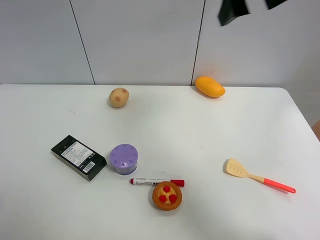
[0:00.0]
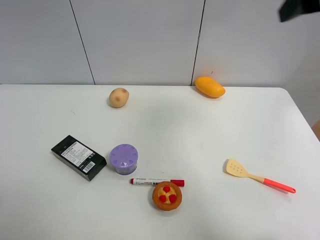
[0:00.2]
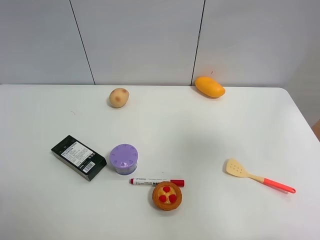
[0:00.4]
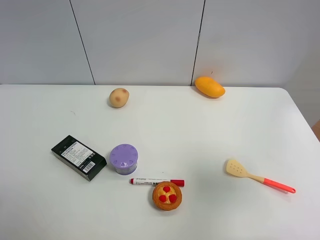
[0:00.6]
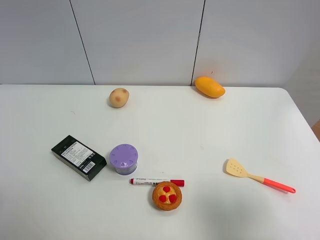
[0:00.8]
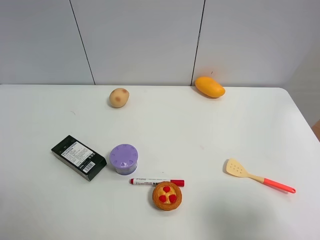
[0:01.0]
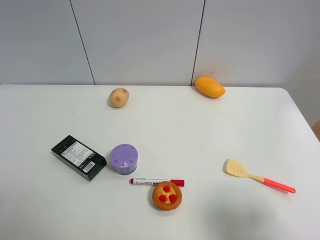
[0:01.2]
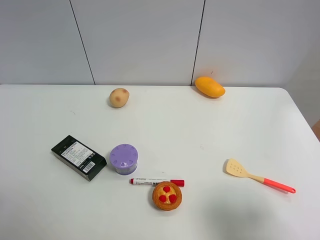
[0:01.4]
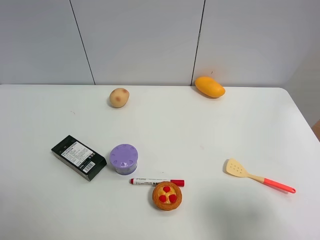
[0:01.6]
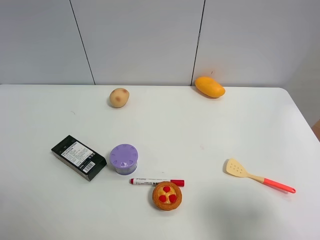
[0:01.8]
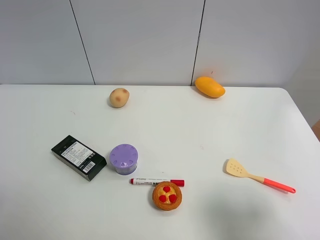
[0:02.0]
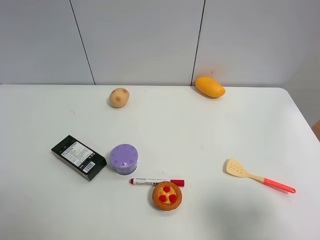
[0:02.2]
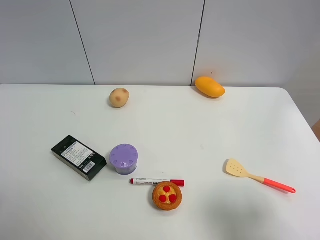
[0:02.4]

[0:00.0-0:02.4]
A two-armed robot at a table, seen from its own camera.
Task of the whole recording: the gripper move the object.
0:00.0 to 0:01.2: The right gripper shifts approximately 35 cm backward, downward and to the right.

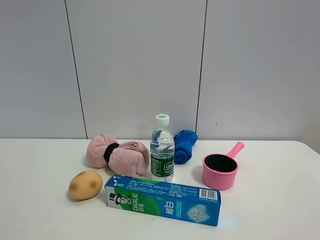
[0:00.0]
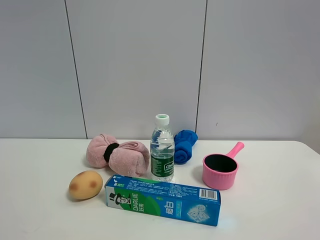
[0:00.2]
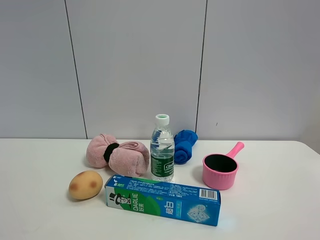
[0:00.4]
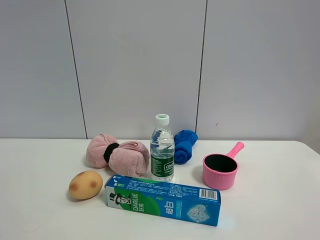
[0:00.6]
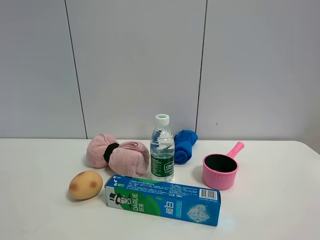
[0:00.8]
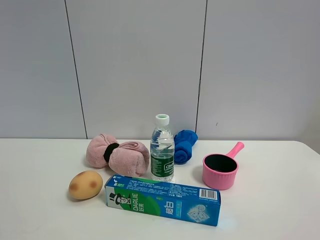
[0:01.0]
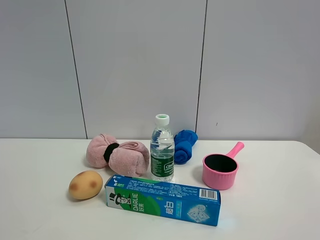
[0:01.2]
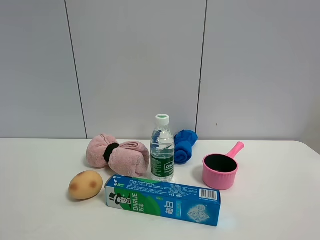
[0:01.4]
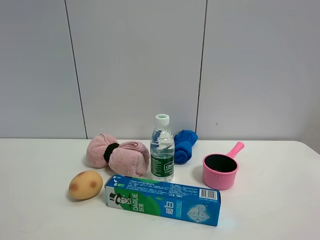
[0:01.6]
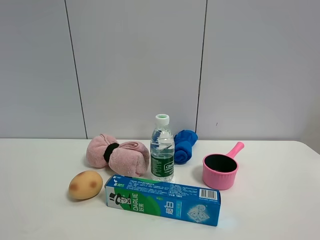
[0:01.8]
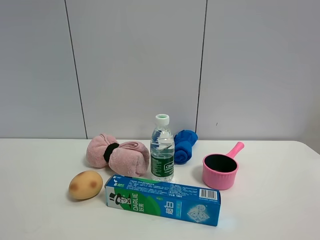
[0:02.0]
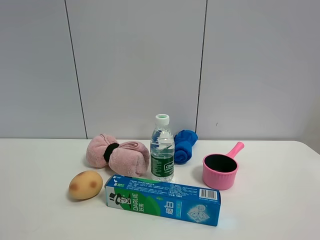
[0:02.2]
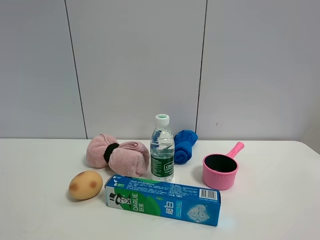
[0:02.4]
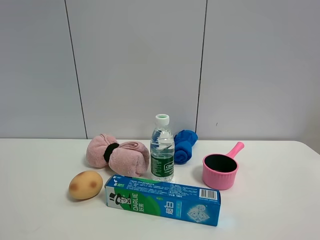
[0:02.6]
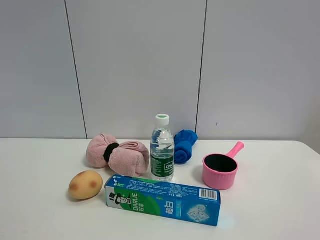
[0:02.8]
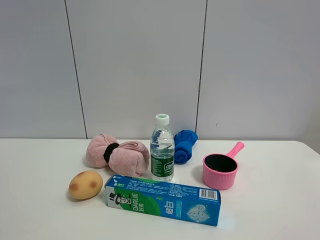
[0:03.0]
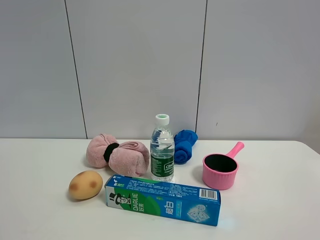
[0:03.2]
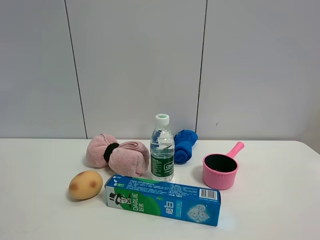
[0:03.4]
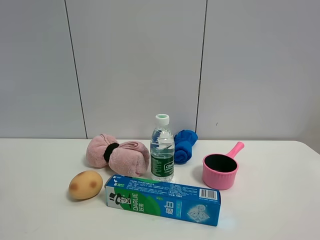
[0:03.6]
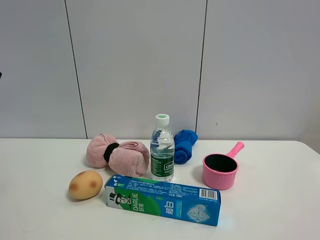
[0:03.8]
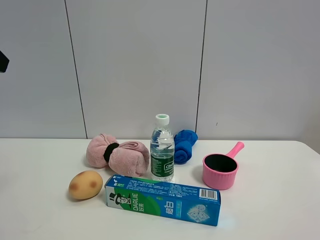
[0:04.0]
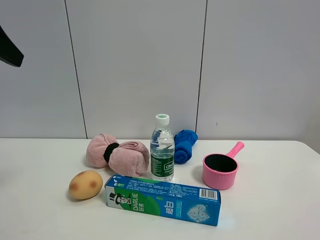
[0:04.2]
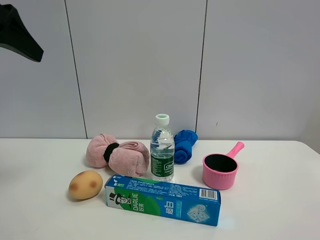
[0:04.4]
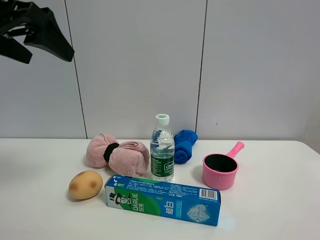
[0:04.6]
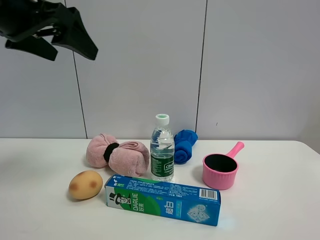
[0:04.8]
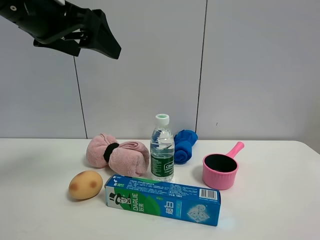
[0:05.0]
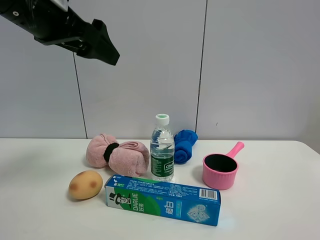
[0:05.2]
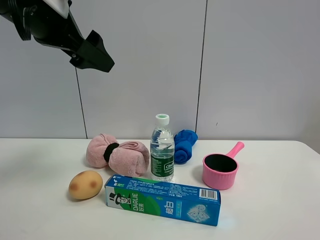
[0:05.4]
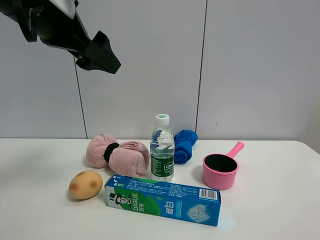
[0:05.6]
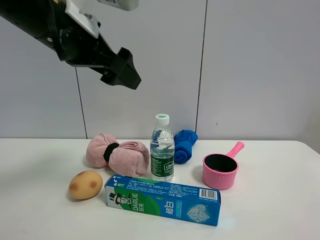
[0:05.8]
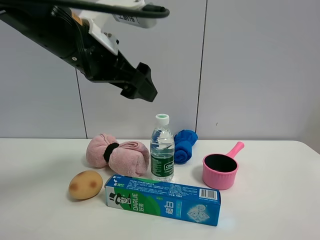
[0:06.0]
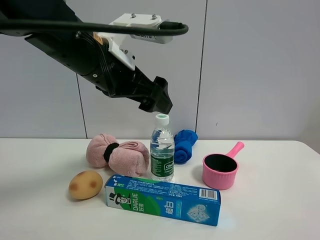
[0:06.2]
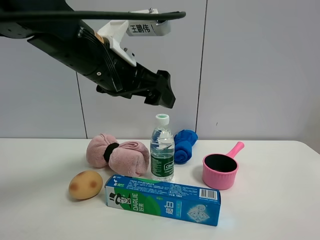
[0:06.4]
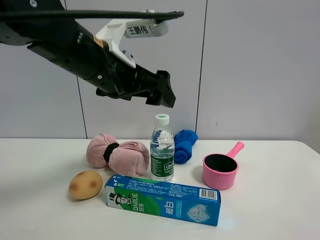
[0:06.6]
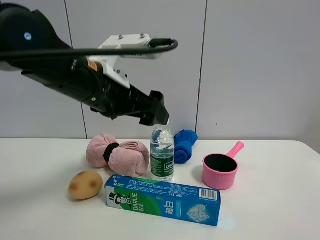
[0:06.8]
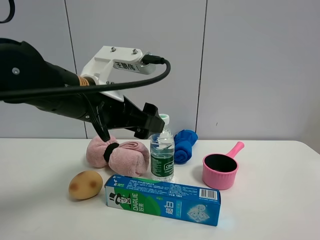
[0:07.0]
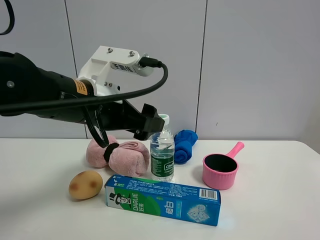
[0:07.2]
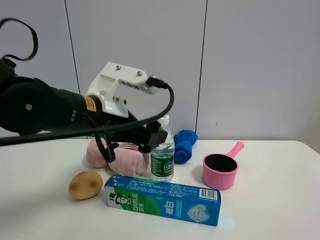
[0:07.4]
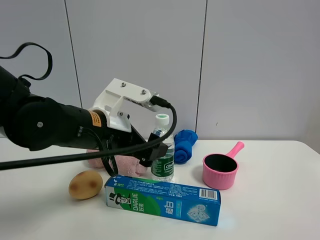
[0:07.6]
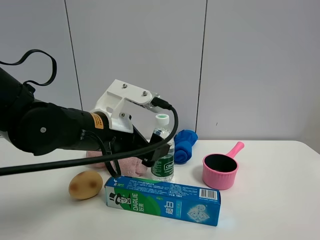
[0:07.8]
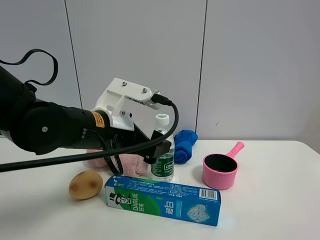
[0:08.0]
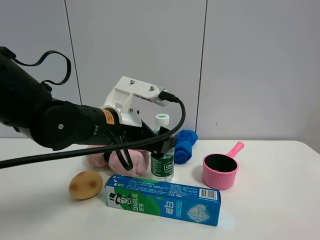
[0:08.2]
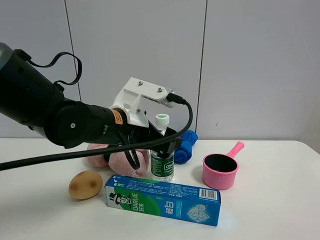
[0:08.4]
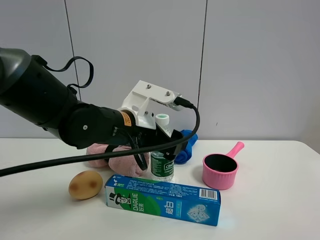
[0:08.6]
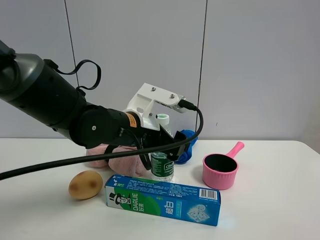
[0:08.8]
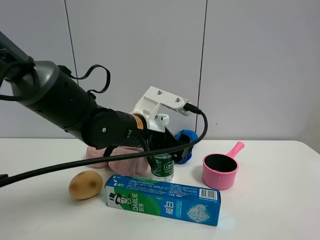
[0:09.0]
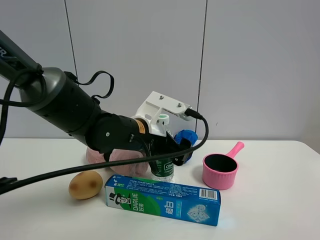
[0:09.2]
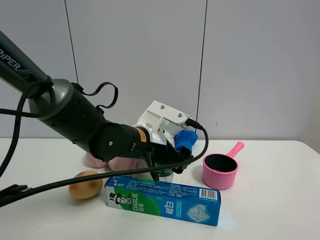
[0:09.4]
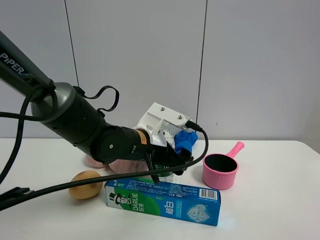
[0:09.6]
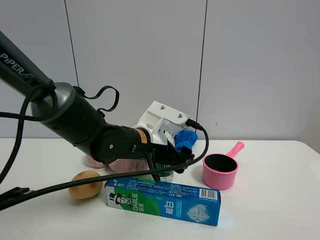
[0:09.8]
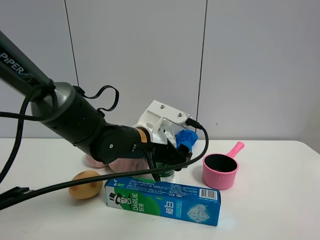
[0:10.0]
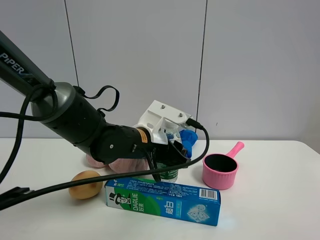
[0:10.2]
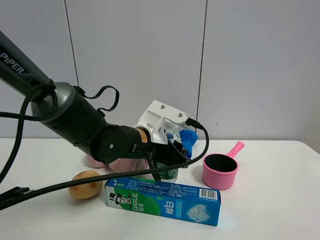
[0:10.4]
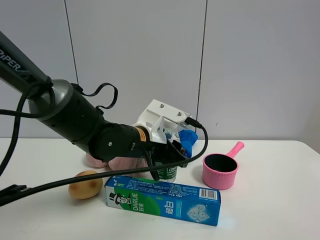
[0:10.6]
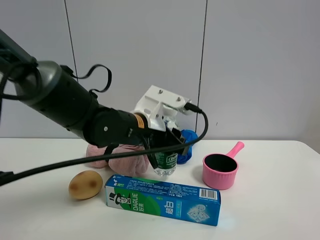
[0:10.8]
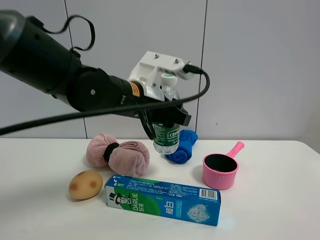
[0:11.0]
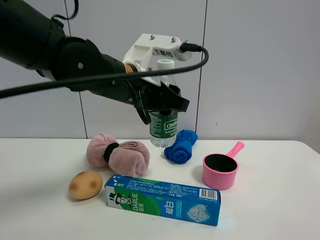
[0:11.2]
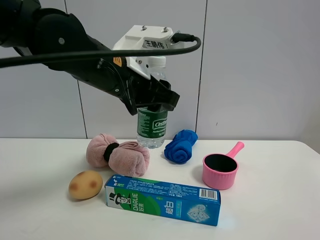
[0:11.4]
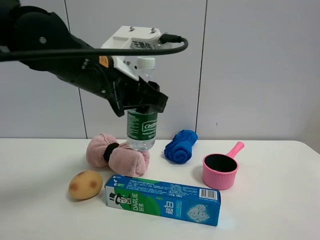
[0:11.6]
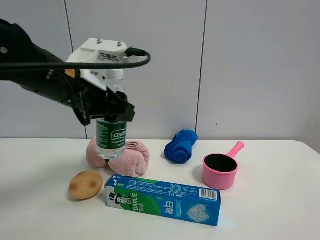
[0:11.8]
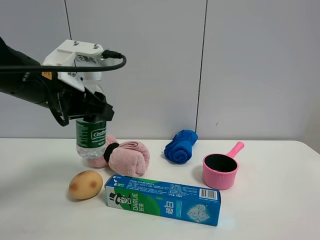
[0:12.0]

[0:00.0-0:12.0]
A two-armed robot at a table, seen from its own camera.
Task of the whole recording: the gripper move the object.
Step, 0:00.0 to 0:10.2: Grasp the YiBao mineral water with the left gripper.
0:00.0 to 0:01.6: Both grippers stay about where they are.
0:03.0 to 0:04.4: The left gripper goes roughly 15 cm forward.
0:04.4 to 0:06.0: The left gripper shifts some 15 cm to the right.
0:06.0 to 0:07.6: The left gripper goes roughly 15 cm downward.
0:07.6 to 0:09.0: The left gripper heads forward and to the right, covering about 10 cm.
0:09.0 to 0:10.4: The left gripper closes up.
0:10.4 to 0:12.0: The left gripper moves to the left and upward, some 20 cm.

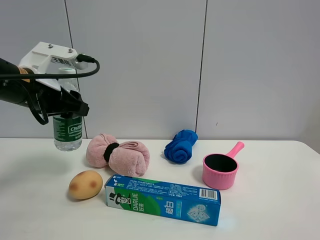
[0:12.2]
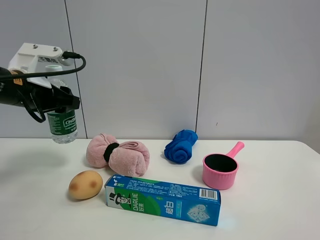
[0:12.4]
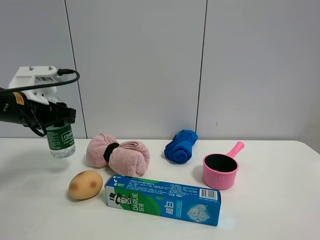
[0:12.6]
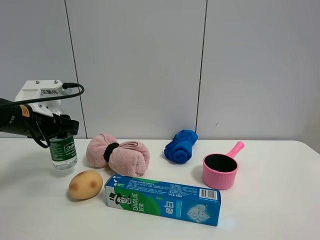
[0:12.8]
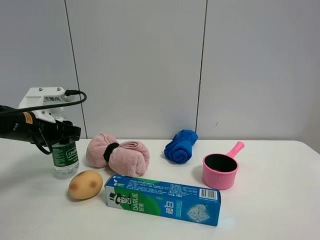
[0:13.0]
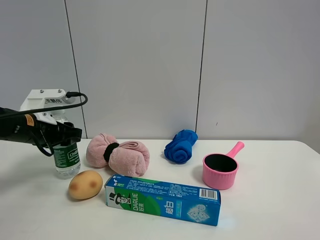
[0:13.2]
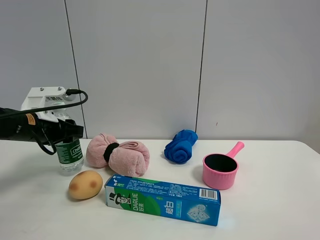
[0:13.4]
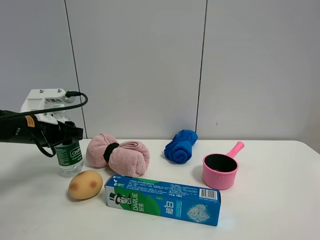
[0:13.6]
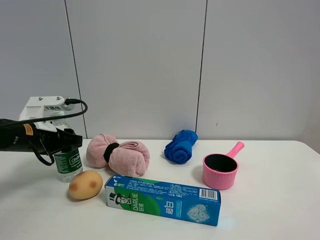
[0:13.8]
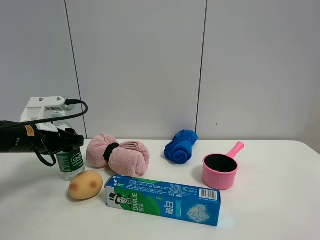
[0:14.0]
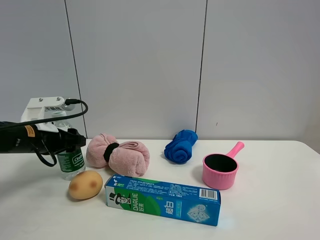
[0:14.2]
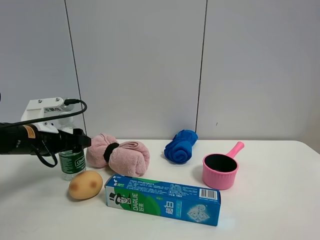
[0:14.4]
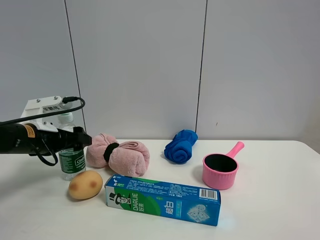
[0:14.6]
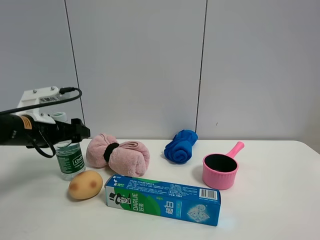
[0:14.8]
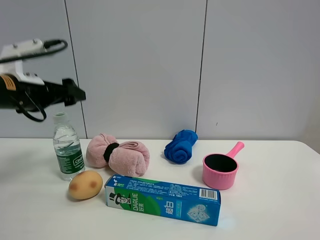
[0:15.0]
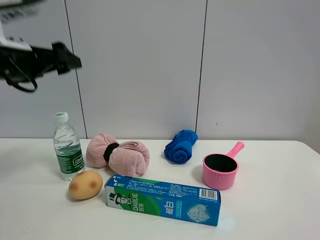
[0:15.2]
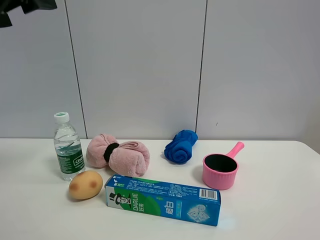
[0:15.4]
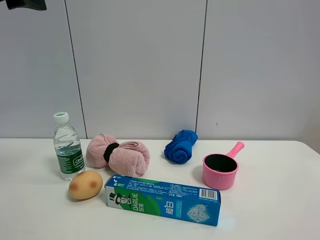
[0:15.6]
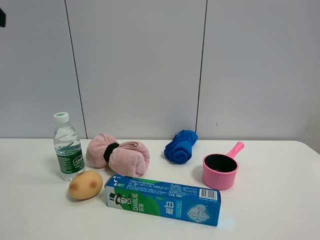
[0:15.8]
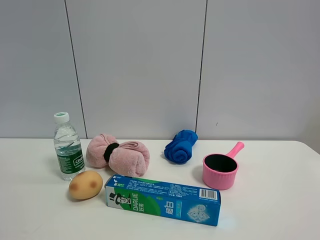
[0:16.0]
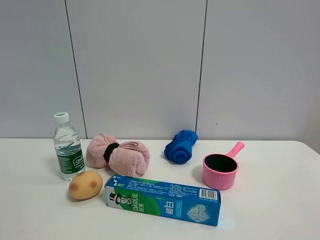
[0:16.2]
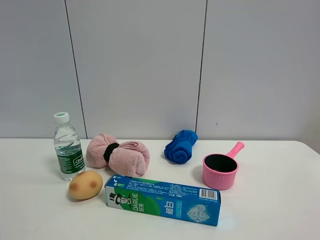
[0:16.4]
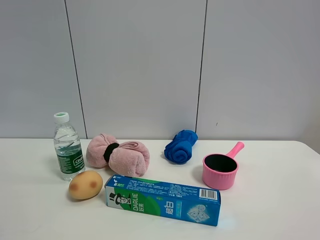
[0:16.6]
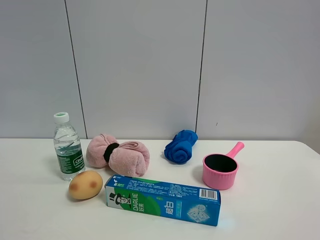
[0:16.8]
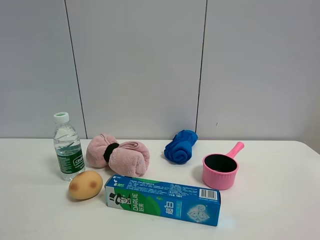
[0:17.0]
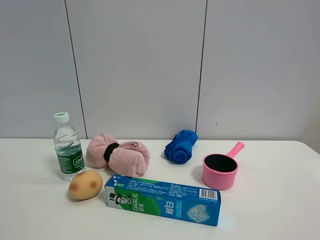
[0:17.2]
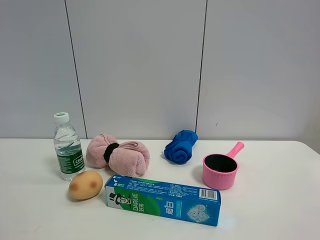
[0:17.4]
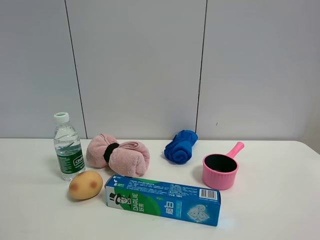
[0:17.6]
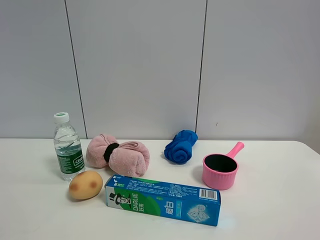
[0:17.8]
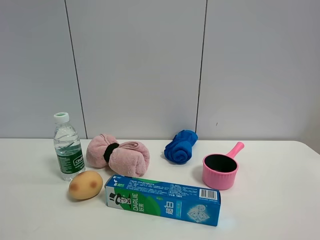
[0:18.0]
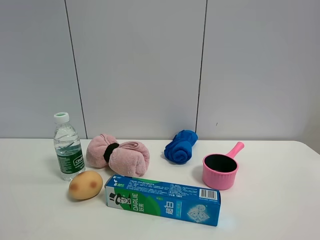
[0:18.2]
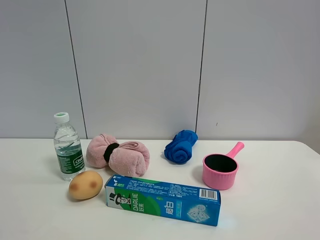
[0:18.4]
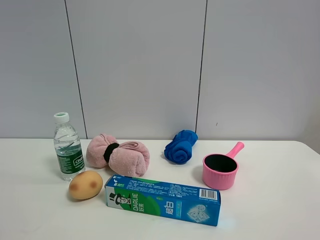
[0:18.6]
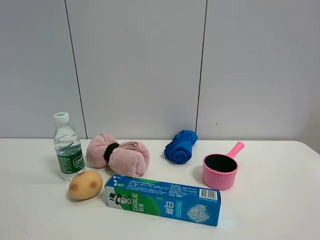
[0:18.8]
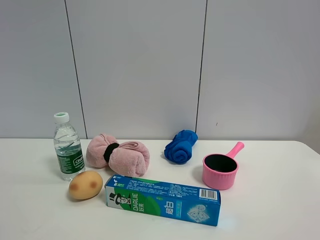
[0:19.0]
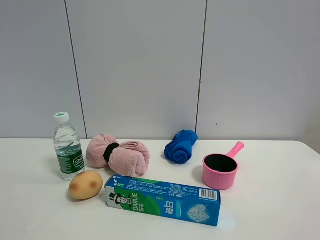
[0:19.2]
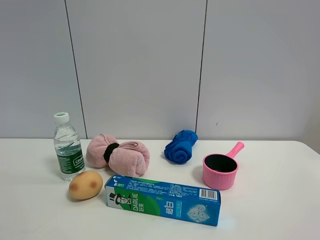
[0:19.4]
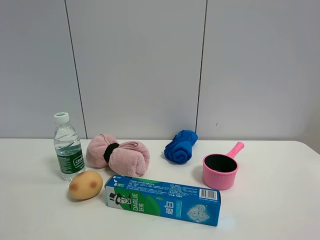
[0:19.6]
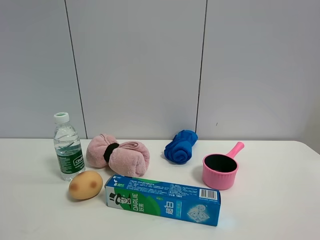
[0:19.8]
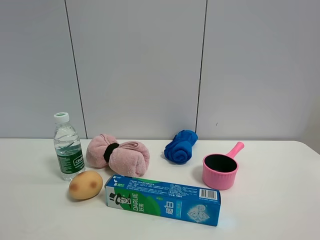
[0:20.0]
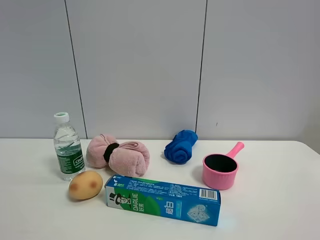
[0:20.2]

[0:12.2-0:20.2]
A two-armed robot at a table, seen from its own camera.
Task of the whole recording: the gripper move the object.
Step, 0:12.2 to 0:14.6: Place the YiBao mineral water on the table with the left gripper.
0:12.2 to 0:13.8: The left gripper travels downward by roughly 10 cm.
0:13.8 to 0:15.4: The left gripper is displaced upward and backward by some 25 cm, and opens.
0:15.4 to 0:17.0: The left gripper moves backward and to the left, some 15 cm.
